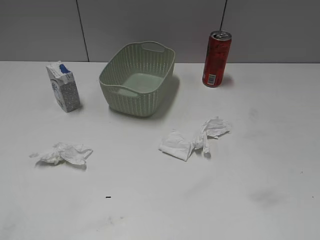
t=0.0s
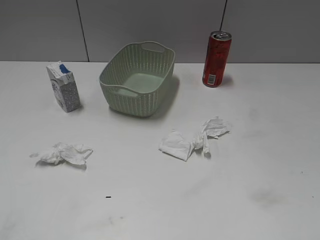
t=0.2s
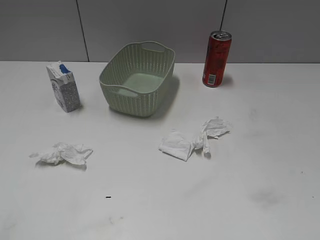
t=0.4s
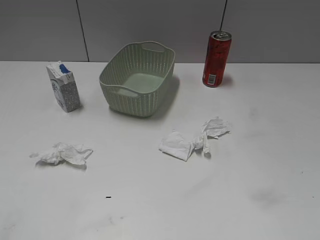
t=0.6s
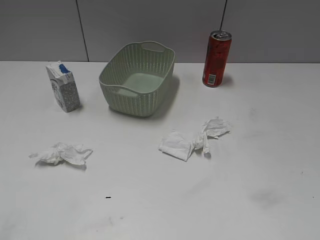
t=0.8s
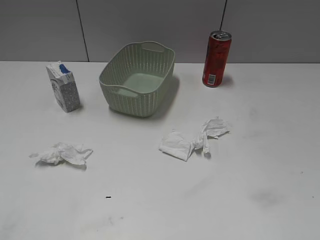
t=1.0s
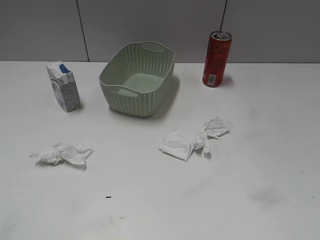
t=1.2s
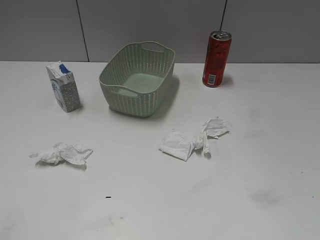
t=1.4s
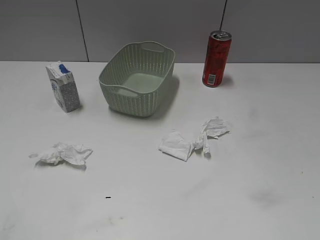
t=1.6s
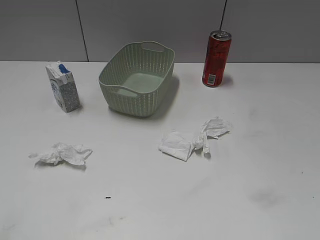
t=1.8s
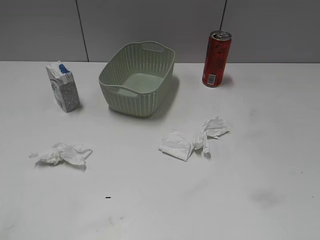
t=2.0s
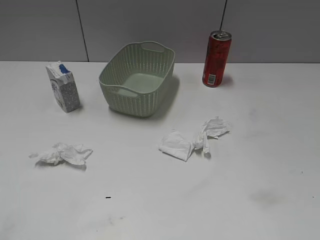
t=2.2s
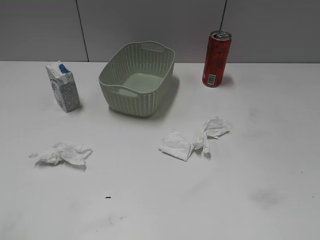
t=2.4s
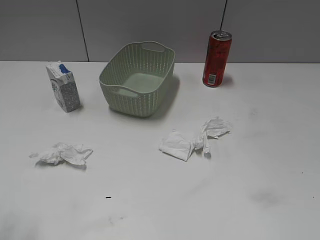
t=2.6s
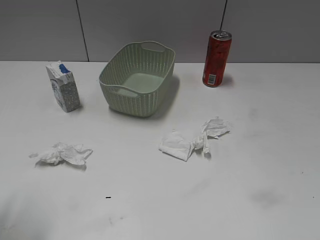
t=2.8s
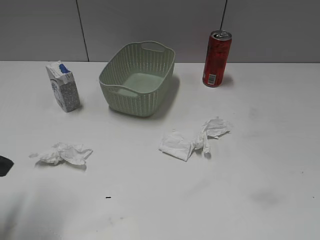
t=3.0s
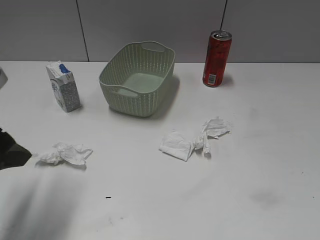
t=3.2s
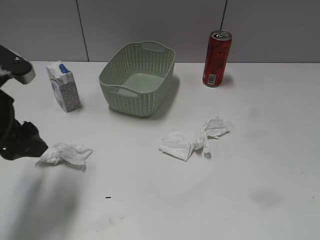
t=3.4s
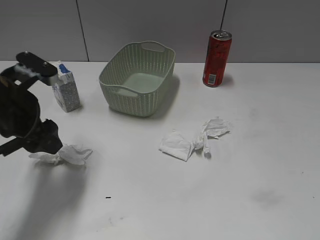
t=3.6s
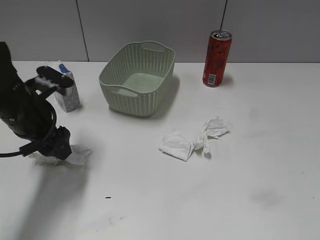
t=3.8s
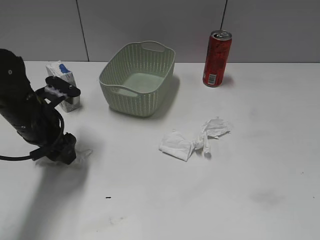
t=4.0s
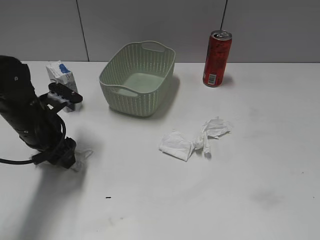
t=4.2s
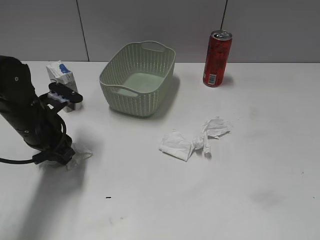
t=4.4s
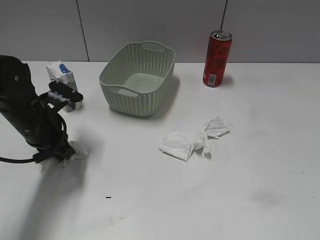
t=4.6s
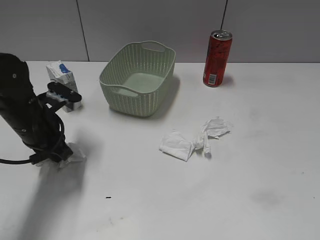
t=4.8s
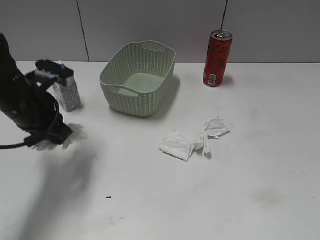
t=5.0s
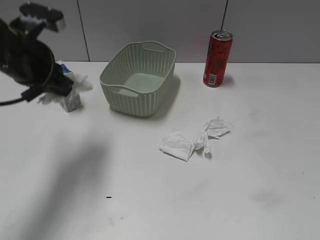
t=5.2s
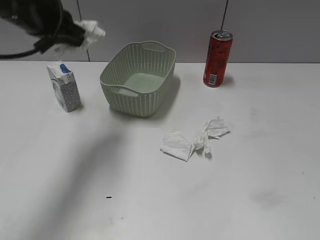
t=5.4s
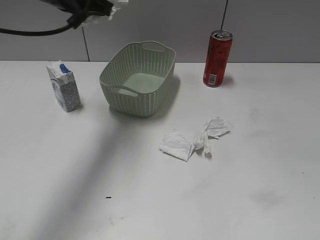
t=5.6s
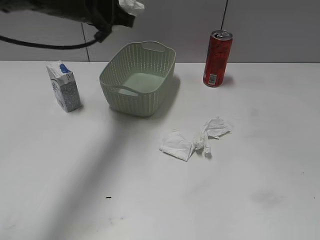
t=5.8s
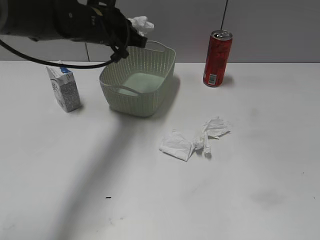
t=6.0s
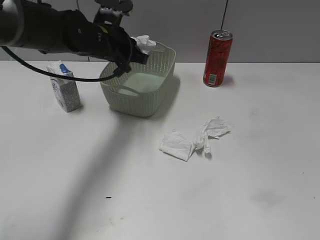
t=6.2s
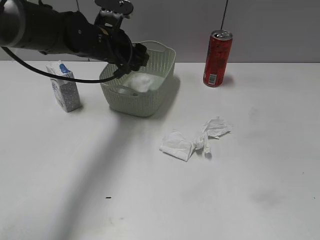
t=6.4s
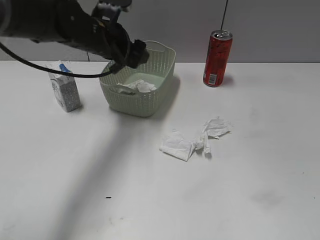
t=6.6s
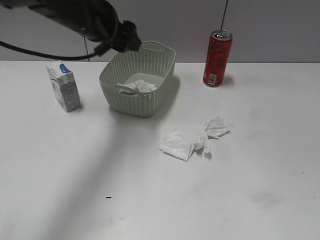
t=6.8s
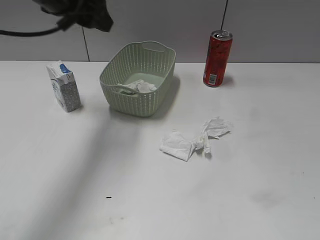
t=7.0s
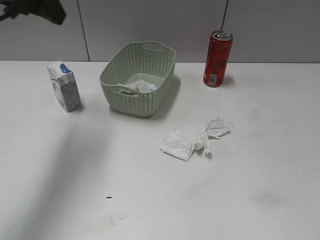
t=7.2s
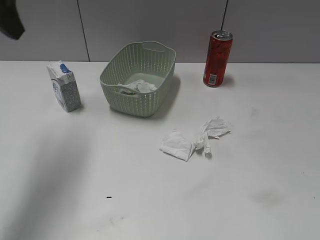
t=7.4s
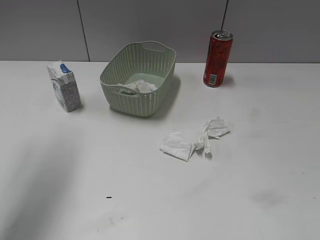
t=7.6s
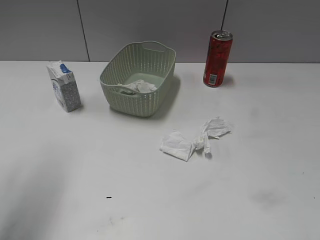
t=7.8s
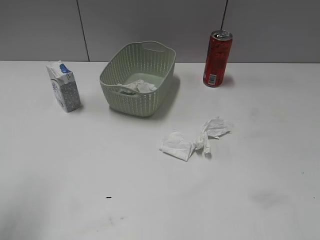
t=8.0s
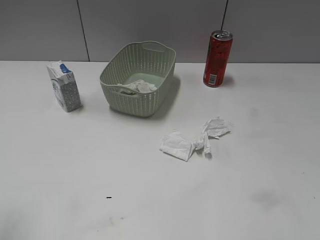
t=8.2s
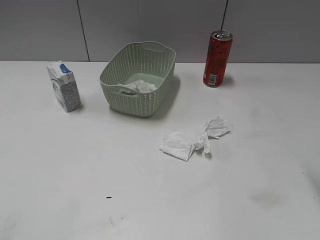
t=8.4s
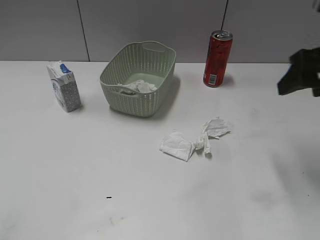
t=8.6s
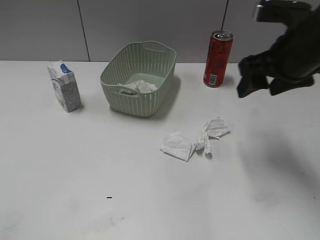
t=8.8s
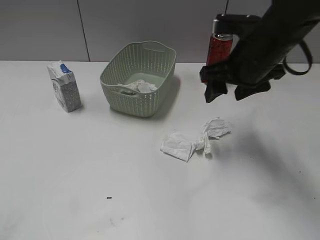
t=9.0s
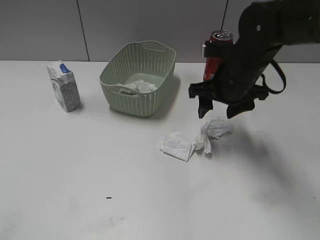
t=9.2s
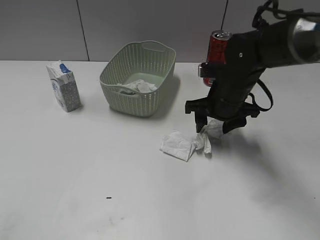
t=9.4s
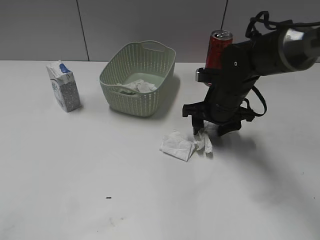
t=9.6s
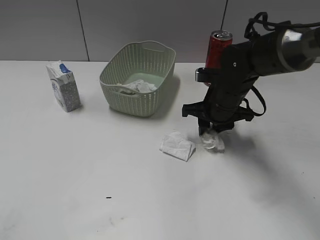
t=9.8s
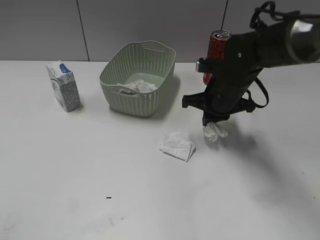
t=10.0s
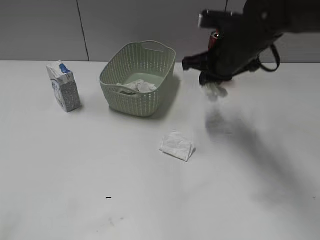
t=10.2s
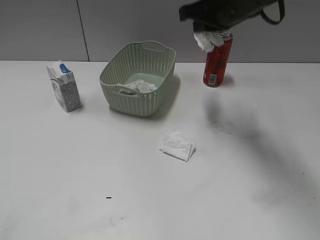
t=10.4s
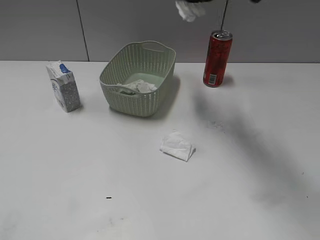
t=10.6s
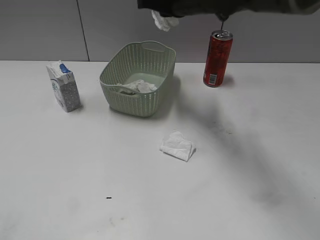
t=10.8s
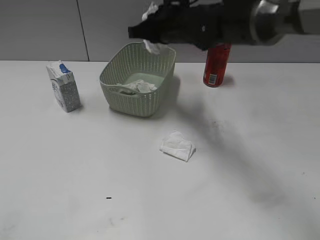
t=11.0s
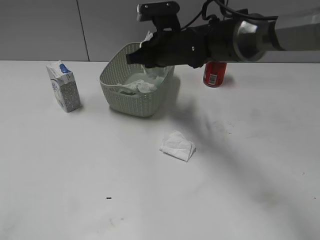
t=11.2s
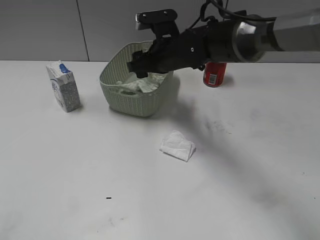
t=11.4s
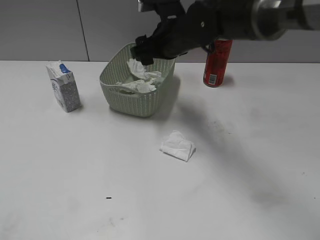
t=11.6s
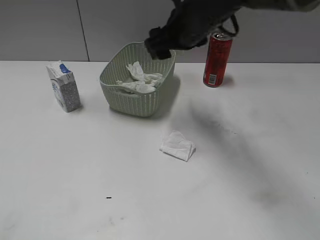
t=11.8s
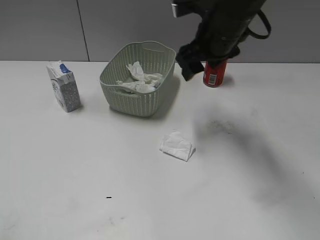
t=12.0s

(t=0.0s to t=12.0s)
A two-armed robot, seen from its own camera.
Step, t=2.8s - t=4.6s: Grasp the waste paper with left gripper.
Step, t=4.8s - t=6.6s: Place the waste paper in the basket with left gripper.
Step, t=6.8s - t=9.8s: Grasp the waste paper with right gripper.
Step, t=10.0s - t=11.6s: Place the waste paper in the basket with right gripper.
t=1.6s - t=3.0s: The left gripper heads forward, covering about 15 cm.
t=3.0s - t=4.4s: The left gripper is displaced forward and downward by approximately 20 cm, and closes.
t=4.4s - t=6.0s: The left gripper travels forward, to the right and upward by about 20 cm, and closes.
t=6.0s - t=7.6s: The left gripper is displaced upward, to the left and backward by roughly 25 cm, and opens up.
t=7.6s - t=9.0s: The left gripper heads backward, covering about 25 cm. The right gripper travels forward and to the left by approximately 35 cm.
t=9.0s - t=10.4s: The right gripper travels forward by roughly 5 cm, reaches roughly 10 cm downward, then returns, and closes its fingers.
t=10.4s - t=12.0s: The left gripper shifts by approximately 5 cm; the right gripper goes downward and returns, approximately 10 cm each way, and opens its fingers.

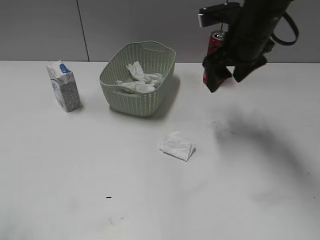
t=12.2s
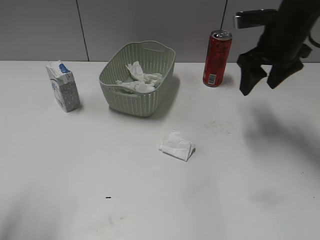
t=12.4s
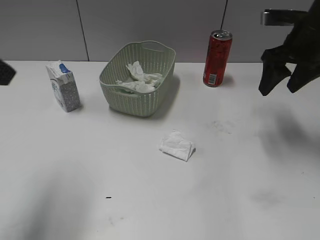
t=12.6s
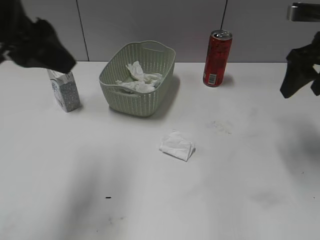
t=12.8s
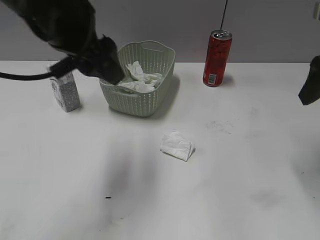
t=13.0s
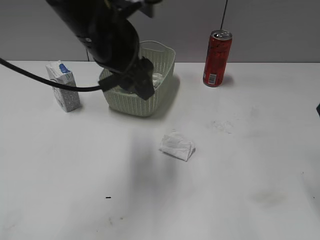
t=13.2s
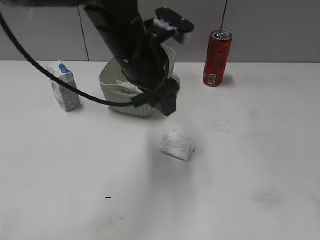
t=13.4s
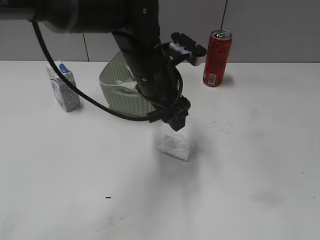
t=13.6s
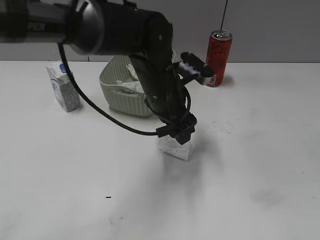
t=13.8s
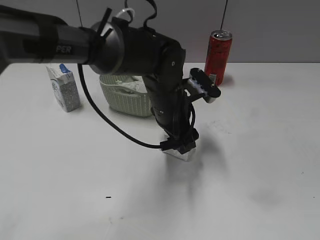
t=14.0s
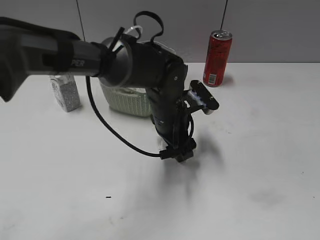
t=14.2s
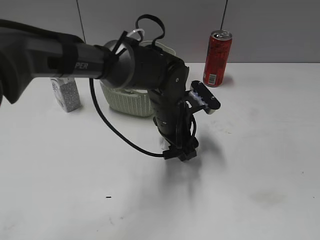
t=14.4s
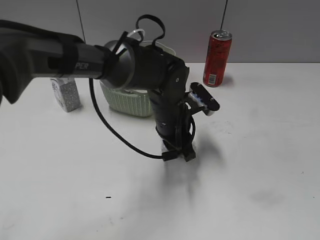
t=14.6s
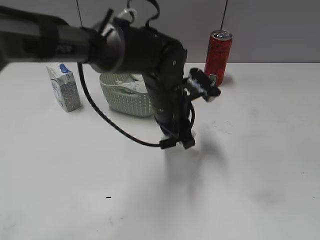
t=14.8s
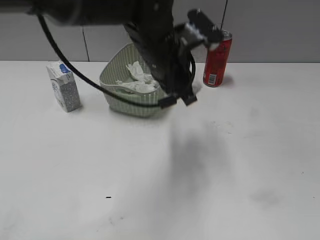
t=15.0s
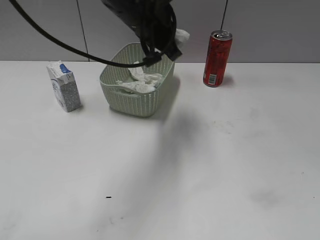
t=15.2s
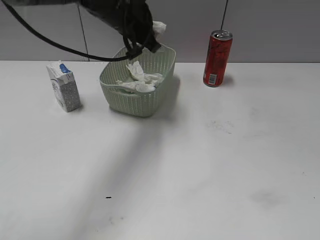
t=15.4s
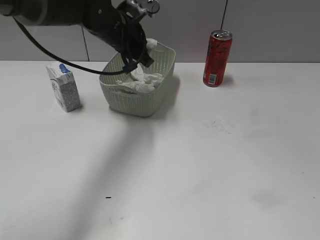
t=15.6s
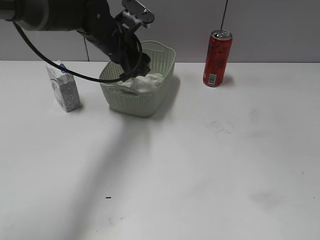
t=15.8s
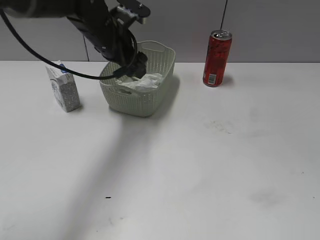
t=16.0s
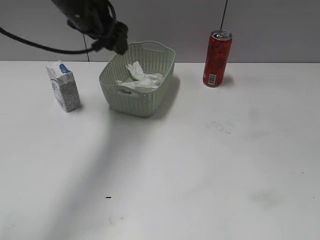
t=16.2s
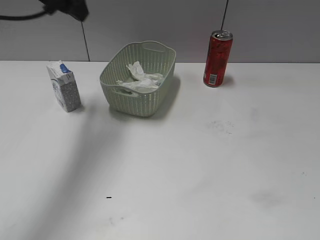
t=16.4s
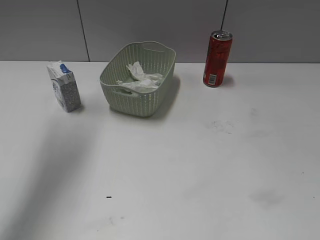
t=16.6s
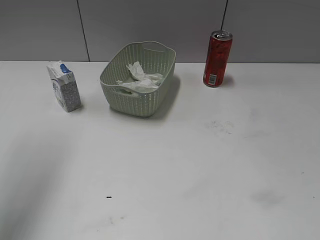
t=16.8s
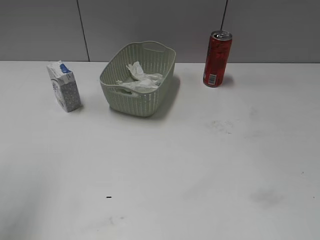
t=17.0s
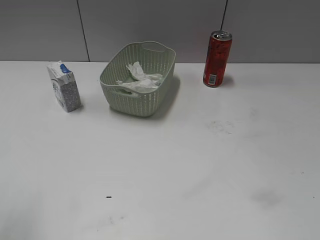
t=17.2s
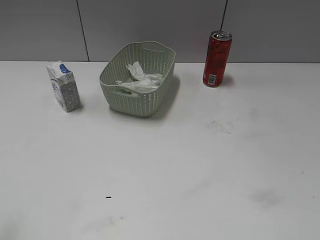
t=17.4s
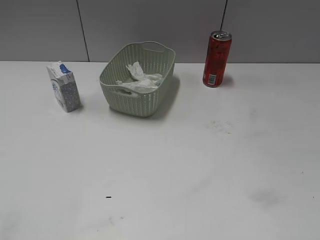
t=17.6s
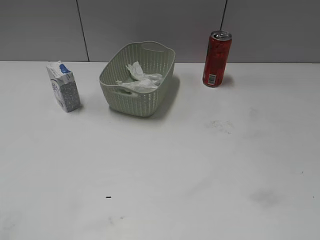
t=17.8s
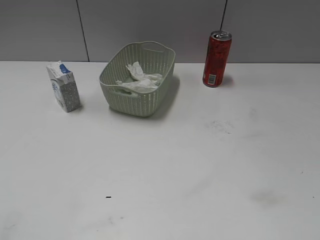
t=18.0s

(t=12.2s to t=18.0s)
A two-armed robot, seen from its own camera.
Step, t=12.2s - t=14.6s: Grasp the waste paper with left gripper.
Step, t=14.8s - t=16.0s: Place the waste paper in the basket with left gripper.
t=12.2s - t=13.6s: The right gripper shifts approximately 30 cm backward and to the right, while the left gripper heads to the right, forward and downward, covering about 40 cm.
t=13.6s - t=15.0s: The left gripper travels downward and back again, roughly 10 cm each way, and closes up. Meanwhile the right gripper goes about 10 cm backward.
t=15.0s - t=16.6s: The left gripper goes roughly 30 cm to the left and upward, and opens its fingers.
t=16.6s - t=18.0s: The left gripper travels backward by some 35 cm.

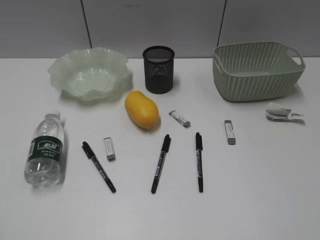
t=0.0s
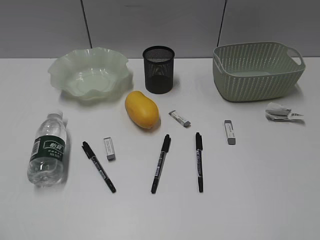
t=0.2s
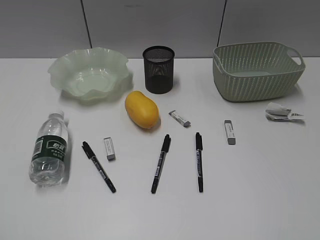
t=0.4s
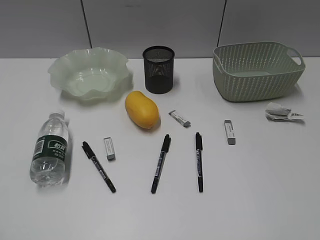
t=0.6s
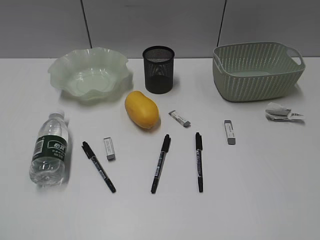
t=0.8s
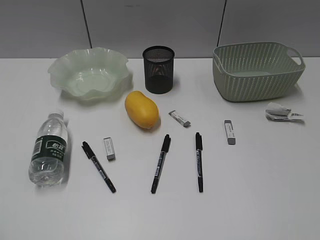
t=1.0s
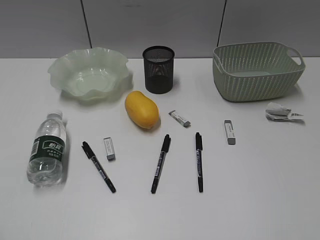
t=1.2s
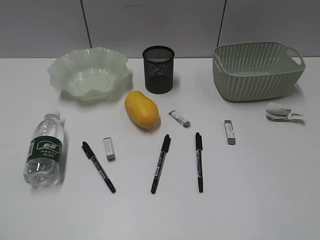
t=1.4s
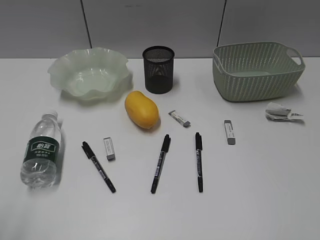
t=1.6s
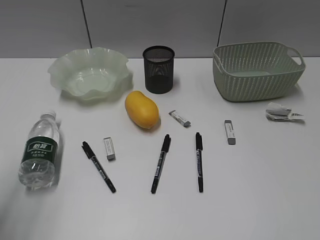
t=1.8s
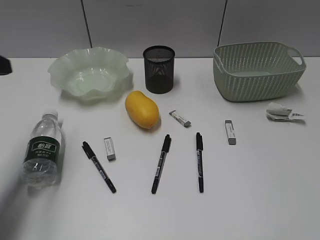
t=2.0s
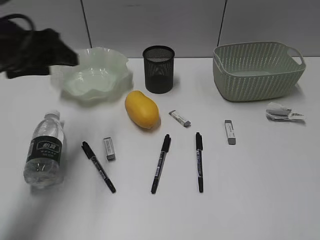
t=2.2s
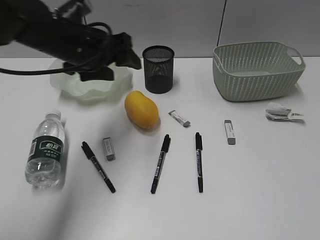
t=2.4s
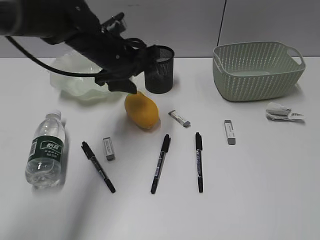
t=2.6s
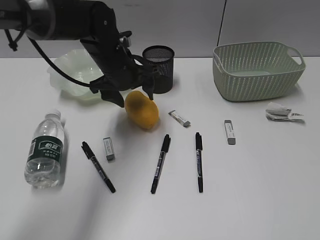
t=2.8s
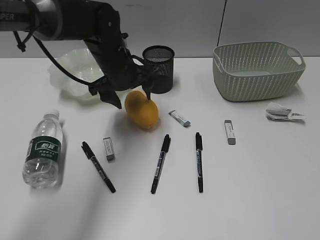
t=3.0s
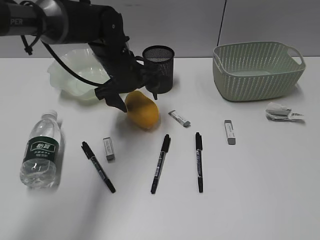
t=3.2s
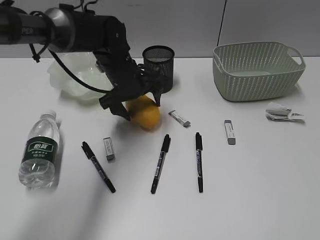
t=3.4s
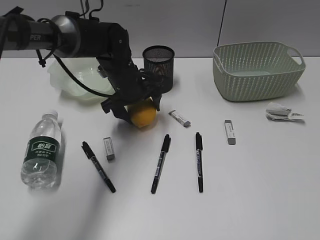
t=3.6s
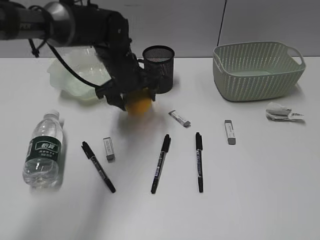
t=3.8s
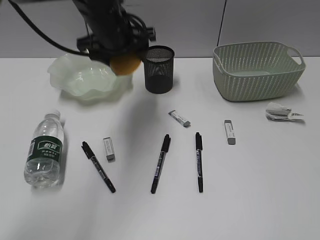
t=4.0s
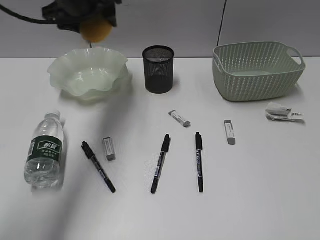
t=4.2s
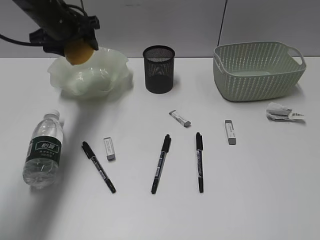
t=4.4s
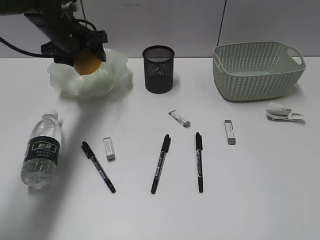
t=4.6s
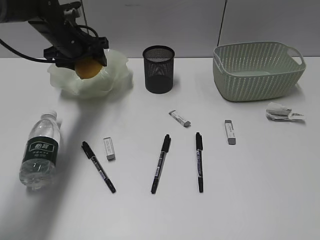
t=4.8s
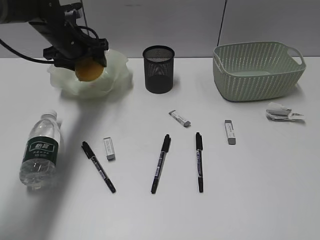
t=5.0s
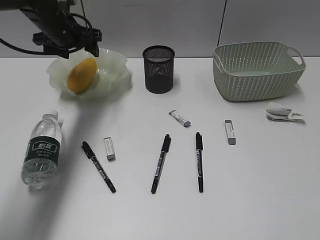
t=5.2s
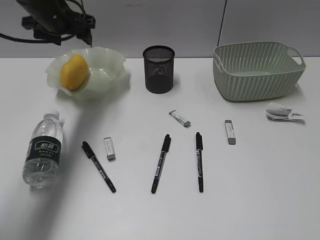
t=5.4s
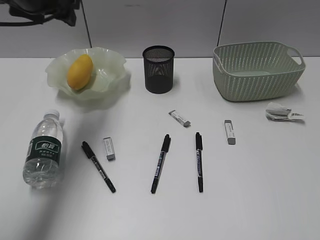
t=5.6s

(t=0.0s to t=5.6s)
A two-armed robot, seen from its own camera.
Step, t=1.2s - t=3.6s: Grasp the mango with left gripper.
t=1.4s - t=2.8s: The left gripper travels forward and to the right by about 50 cm, and opens.
t=2.8s - t=4.2s: The left gripper is displaced upward and to the left by roughly 15 cm.
t=4.2s - t=5.6s: The left gripper goes some 5 cm to the left, and goes downward and returns, about 10 cm each way.
